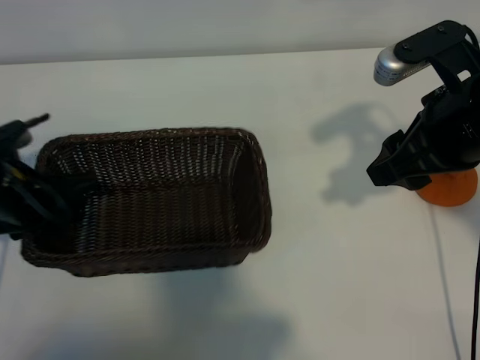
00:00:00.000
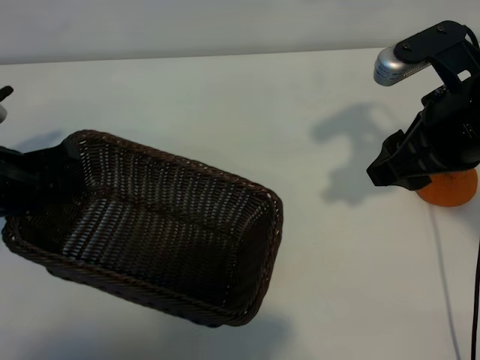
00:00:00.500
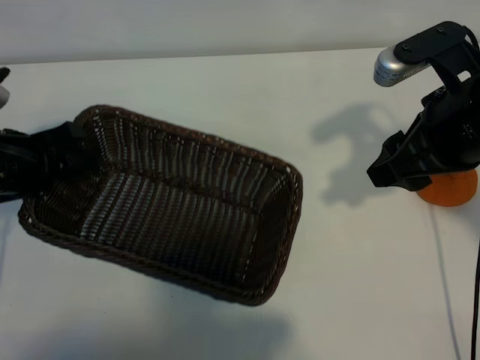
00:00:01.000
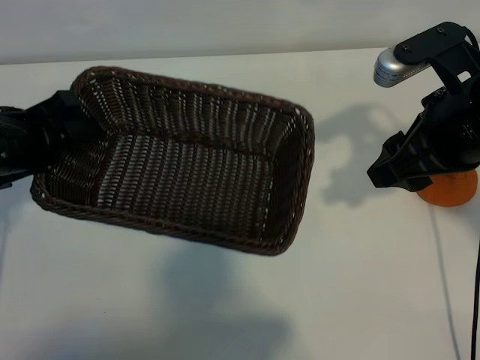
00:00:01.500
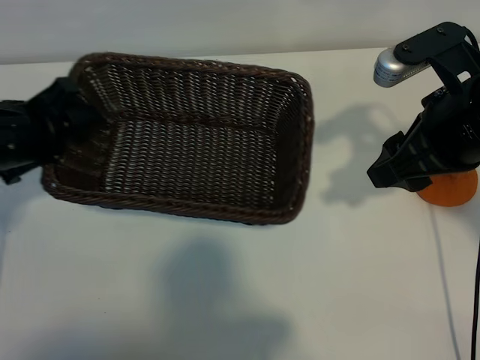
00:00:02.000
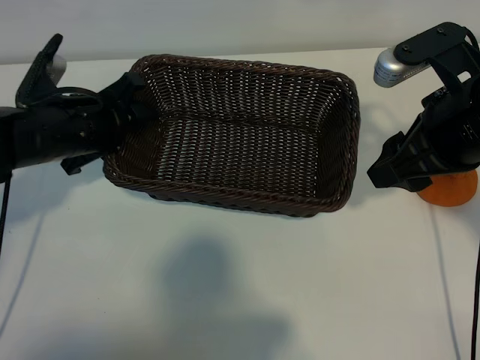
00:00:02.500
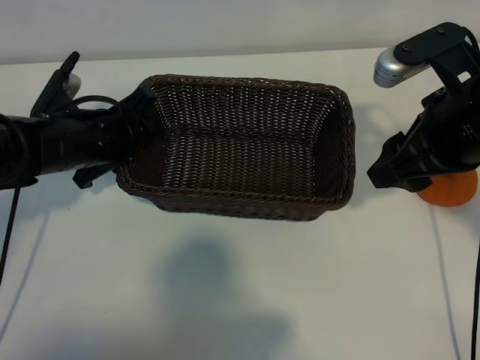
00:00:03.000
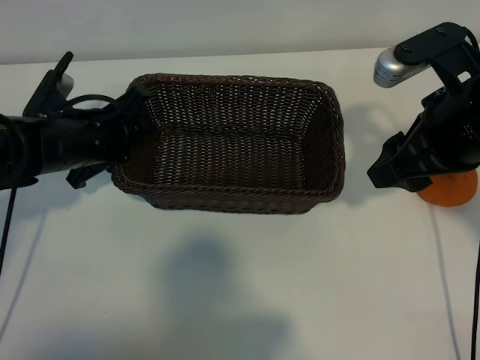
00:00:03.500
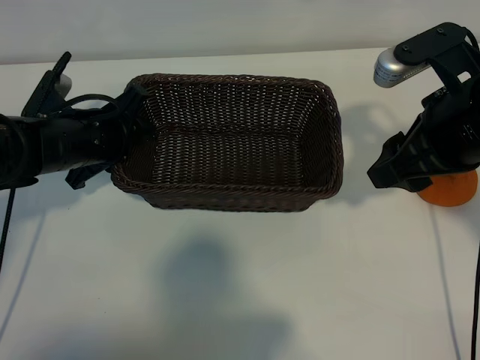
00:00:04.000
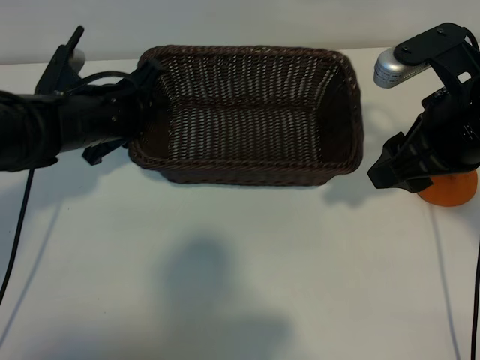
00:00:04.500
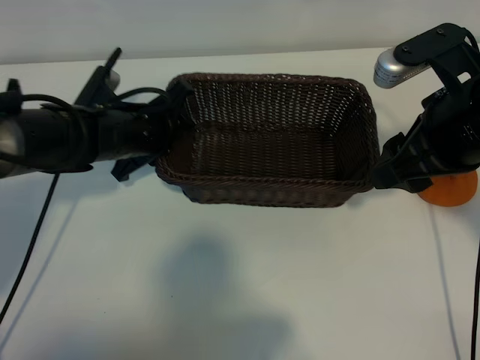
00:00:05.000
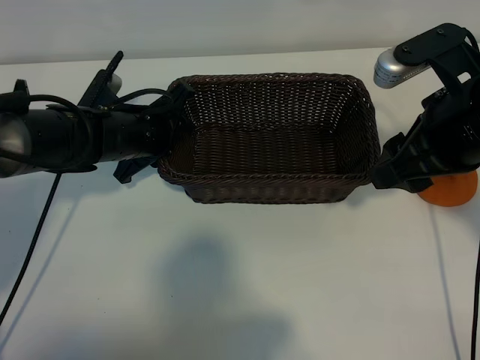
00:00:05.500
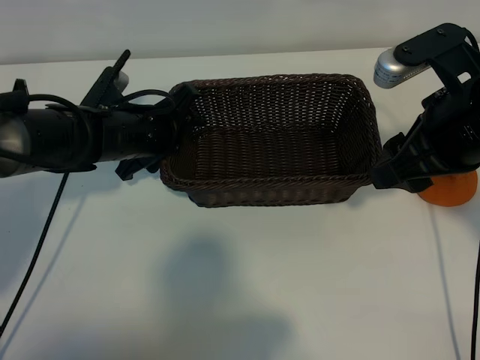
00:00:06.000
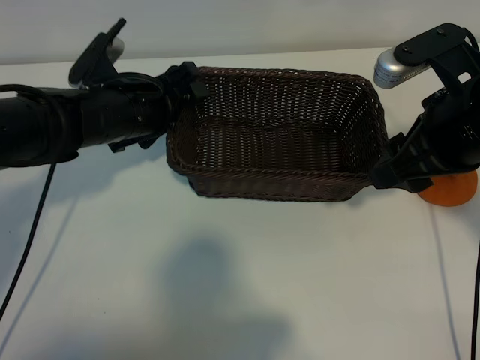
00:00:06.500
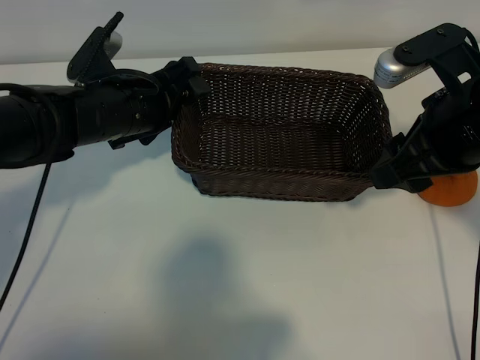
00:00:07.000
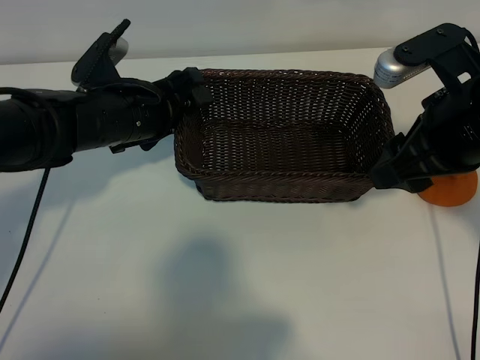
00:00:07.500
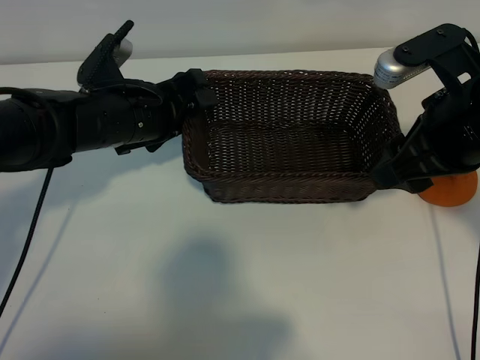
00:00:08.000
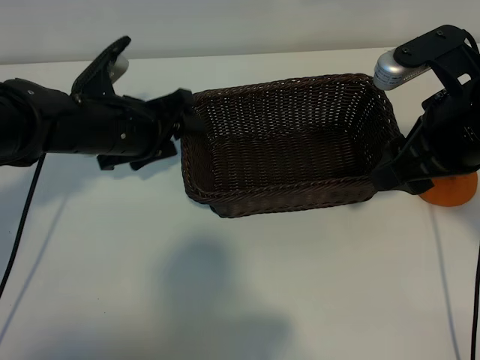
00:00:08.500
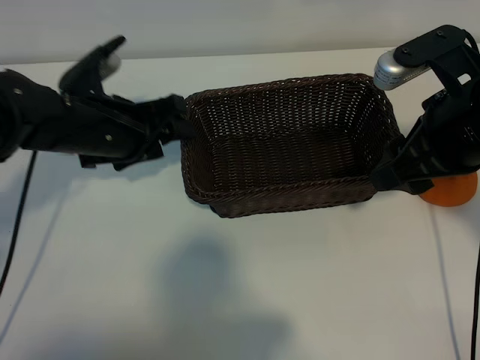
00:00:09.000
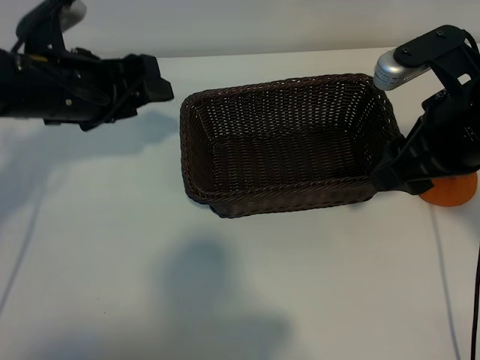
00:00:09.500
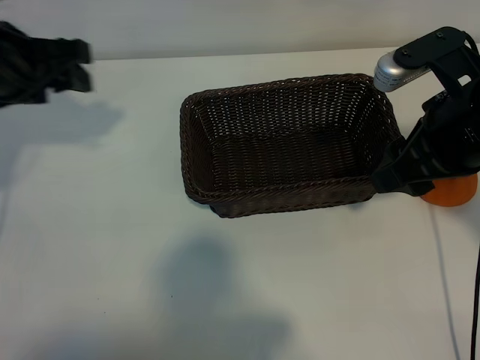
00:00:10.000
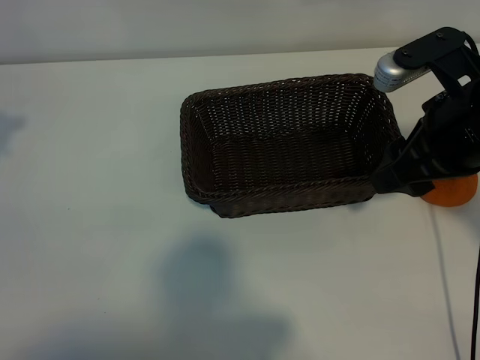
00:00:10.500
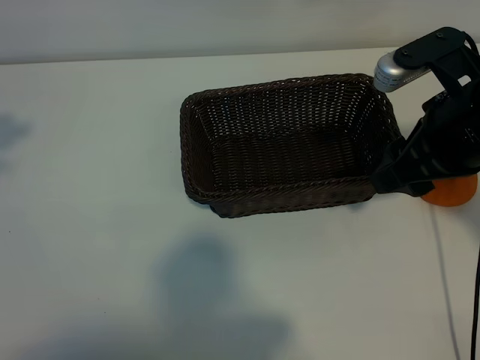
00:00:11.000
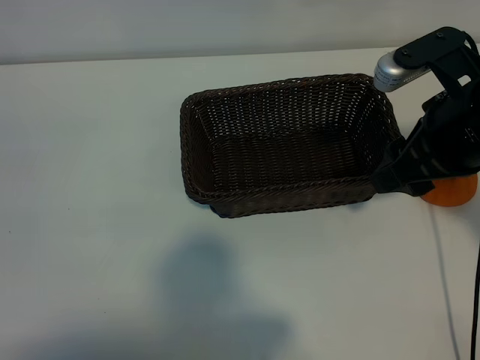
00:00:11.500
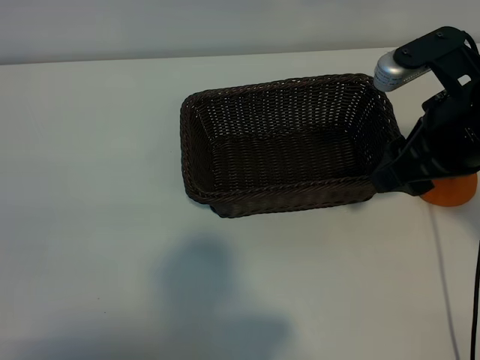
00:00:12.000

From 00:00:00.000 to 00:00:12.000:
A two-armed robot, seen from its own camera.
Task of the whole recording: pick up the orange and put it into the basket.
Step, from 00:00:00.000 to 00:00:08.500: Place the basket in the center of view with left gripper.

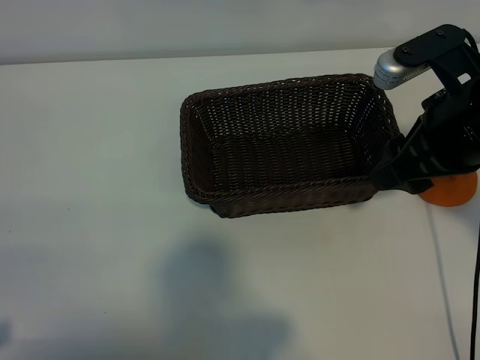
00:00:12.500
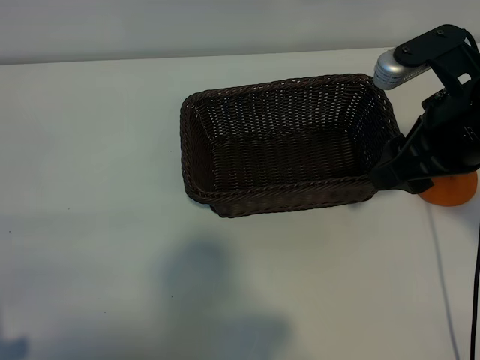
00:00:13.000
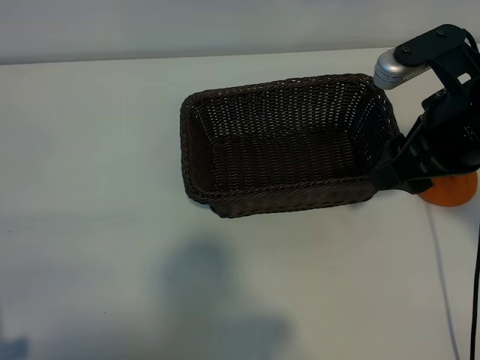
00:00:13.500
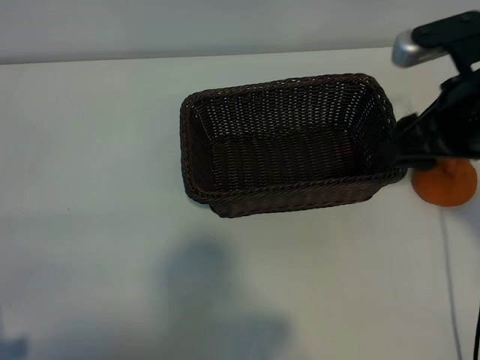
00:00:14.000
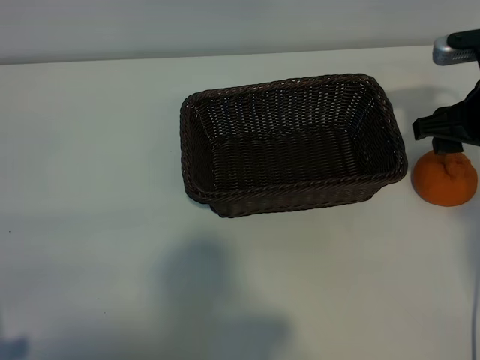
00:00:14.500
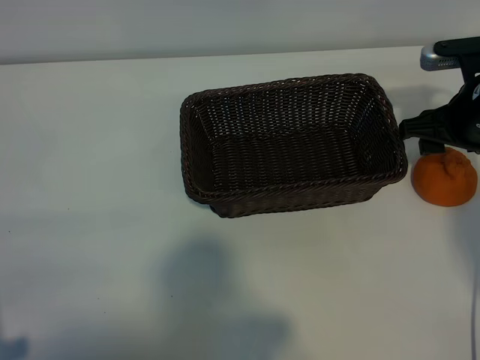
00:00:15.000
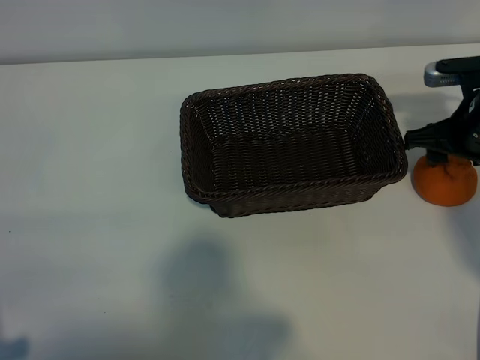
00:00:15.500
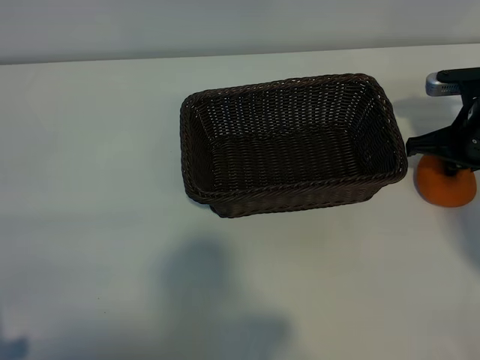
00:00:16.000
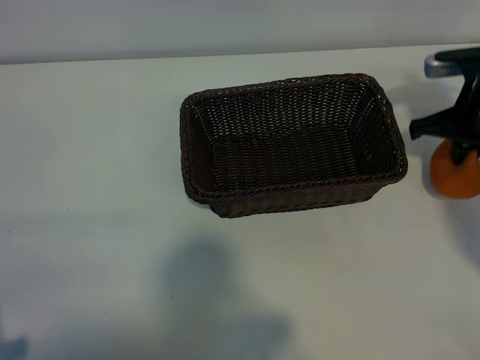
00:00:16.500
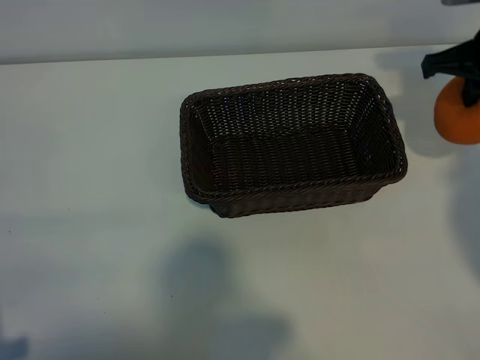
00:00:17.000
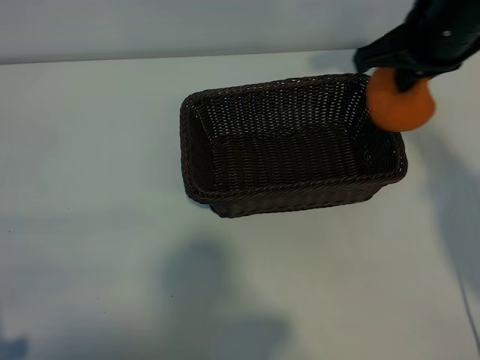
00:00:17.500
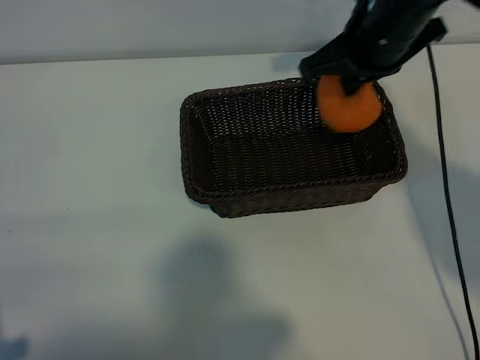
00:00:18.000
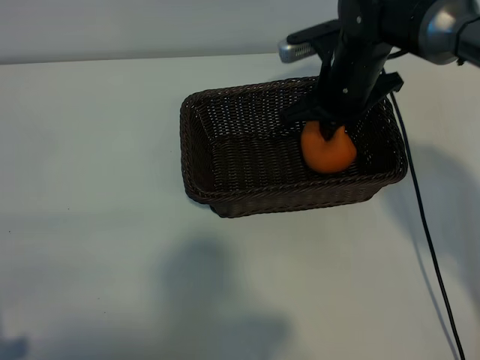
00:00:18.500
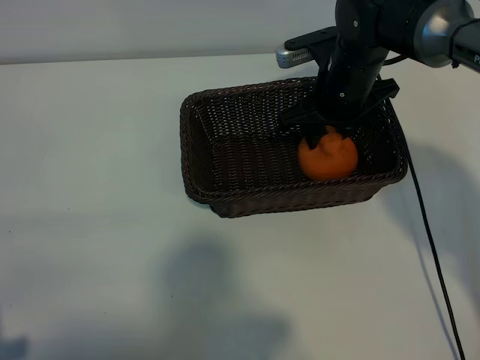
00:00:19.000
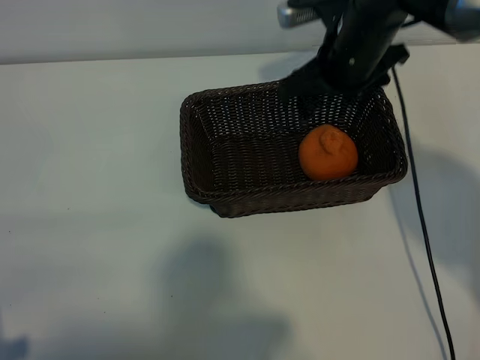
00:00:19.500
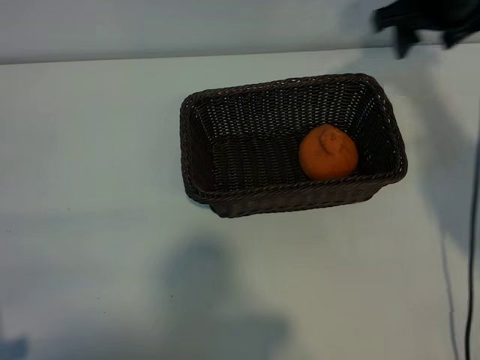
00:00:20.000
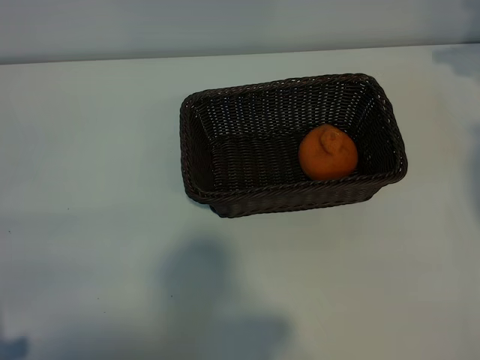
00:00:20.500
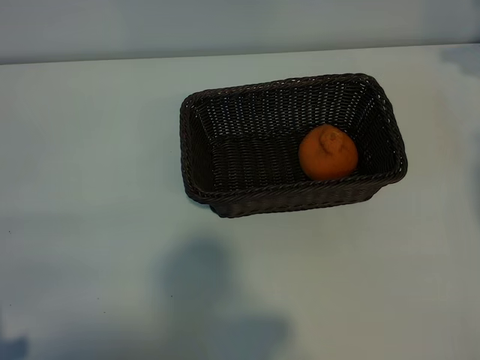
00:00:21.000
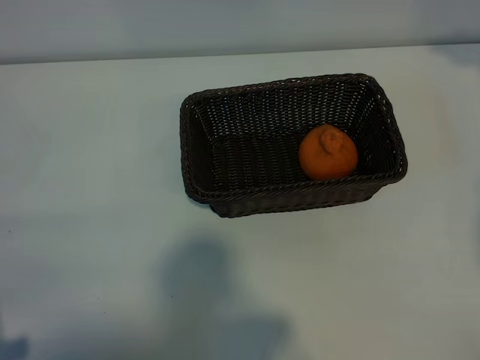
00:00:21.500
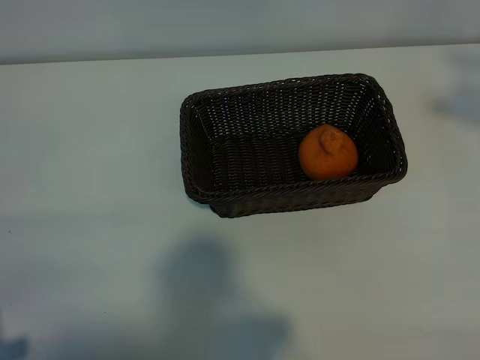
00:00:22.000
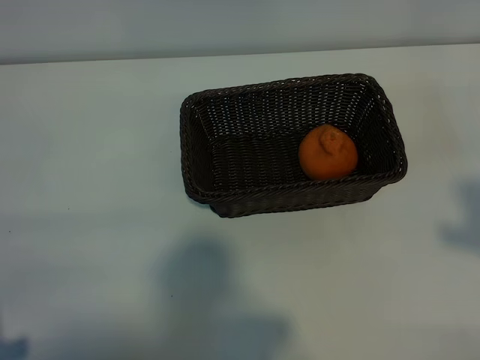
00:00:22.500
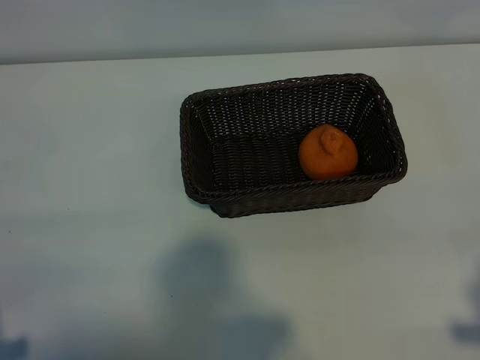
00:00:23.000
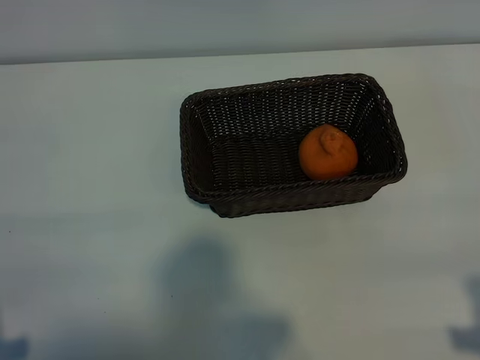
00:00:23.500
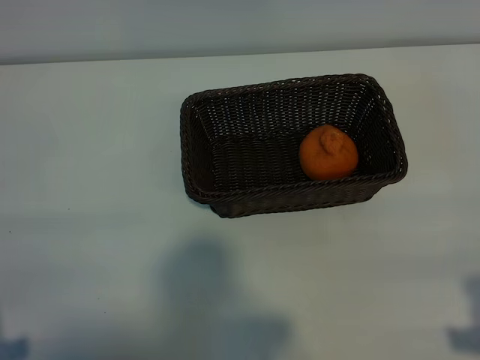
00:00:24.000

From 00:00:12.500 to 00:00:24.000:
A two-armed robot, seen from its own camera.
Task of the whole recording: pick up the orange and put it into the basket.
Step, from 00:00:12.500 to 00:00:16.000: Grasp the orange with right gripper.
Step, from 00:00:16.500 to 00:00:19.000: Place the orange in the basket with right gripper.
